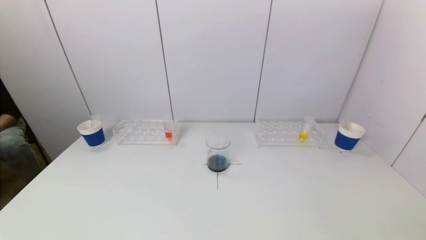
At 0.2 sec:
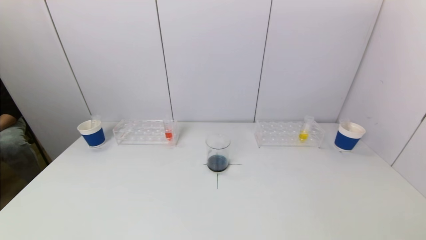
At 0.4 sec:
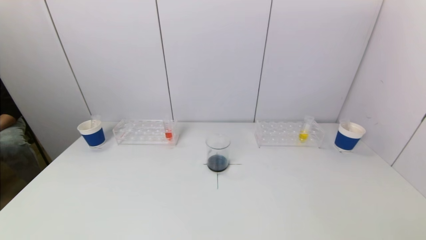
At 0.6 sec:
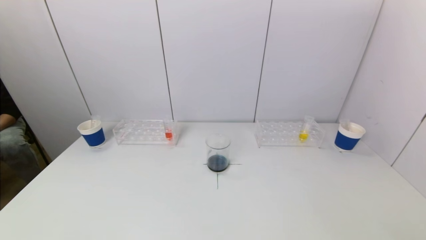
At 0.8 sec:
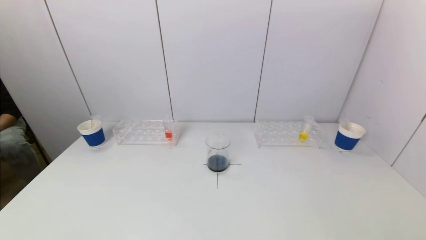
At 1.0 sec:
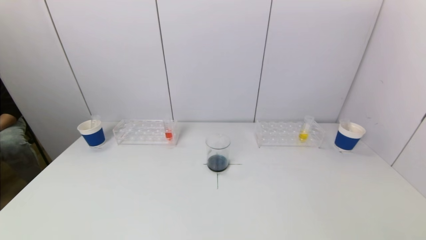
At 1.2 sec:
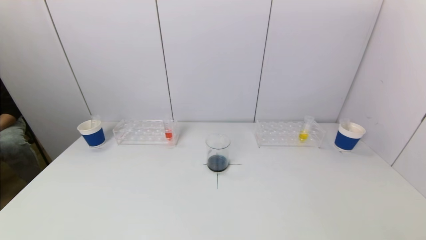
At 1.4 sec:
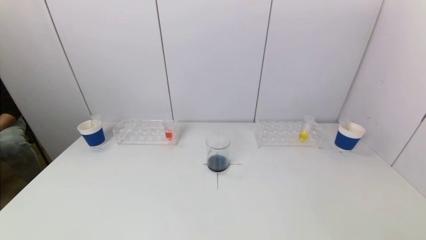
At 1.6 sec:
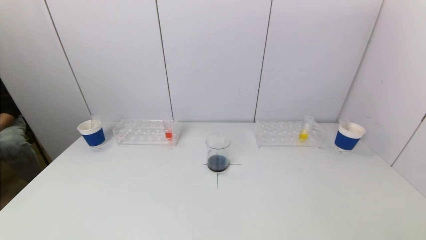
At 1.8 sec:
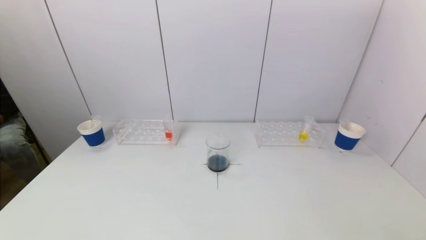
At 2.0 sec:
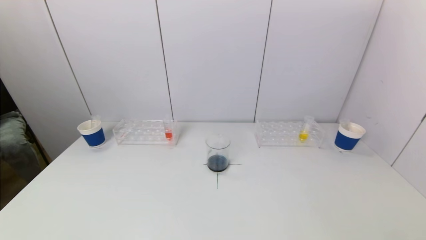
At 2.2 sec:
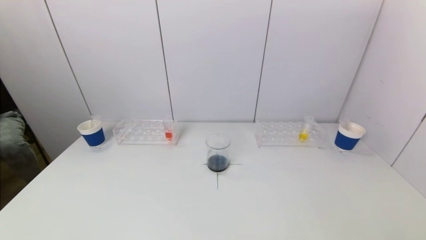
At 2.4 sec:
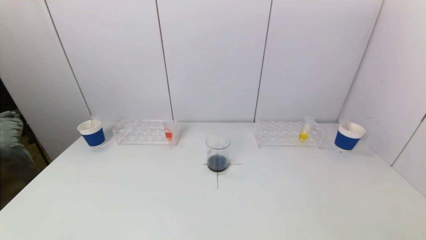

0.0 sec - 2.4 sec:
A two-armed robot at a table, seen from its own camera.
Task of the whole recording: pick up a test tube with pigment on left test tube rack and a test tube with pigment on right test tube rack by grippers and pour them into the beaker.
1.2 sec - 2.4 sec: Both grippers stay put.
